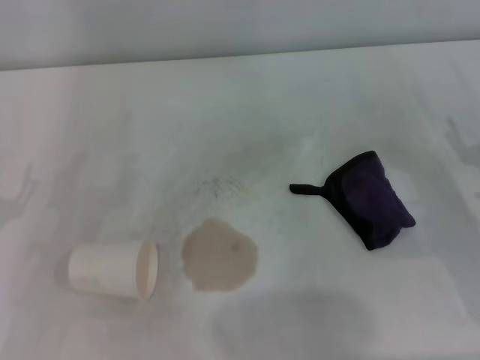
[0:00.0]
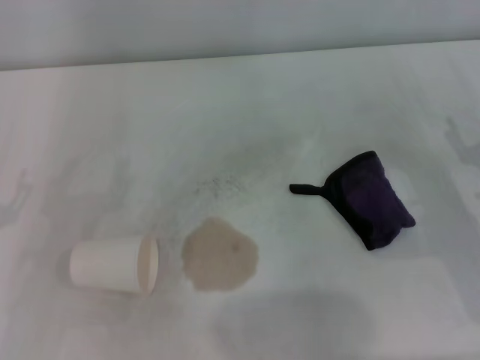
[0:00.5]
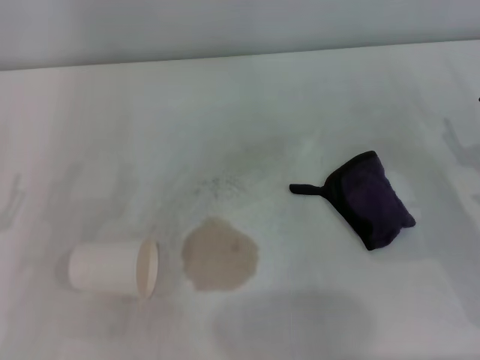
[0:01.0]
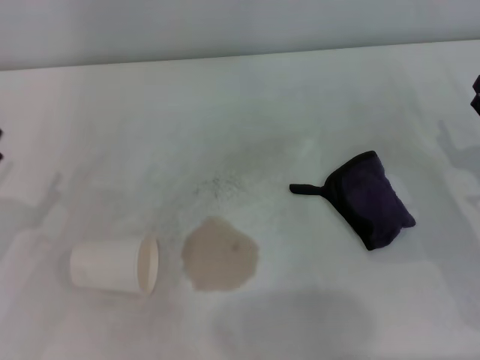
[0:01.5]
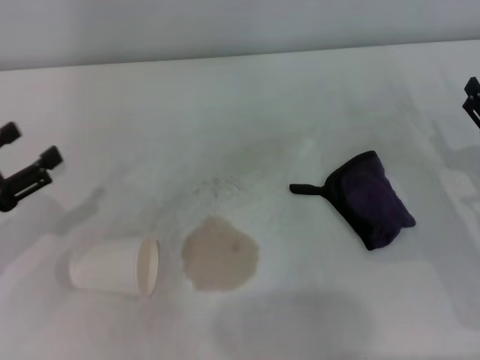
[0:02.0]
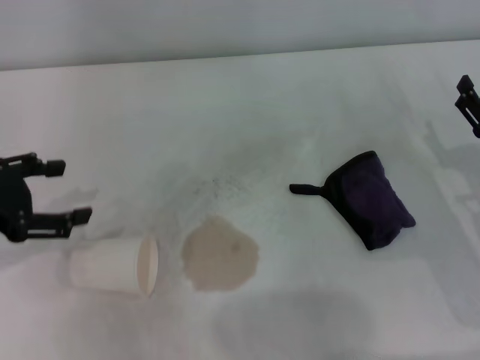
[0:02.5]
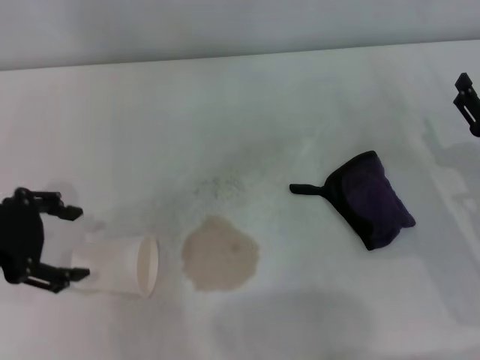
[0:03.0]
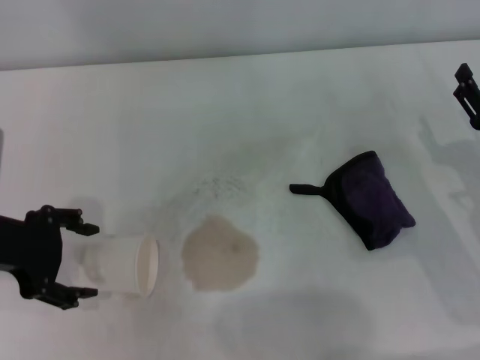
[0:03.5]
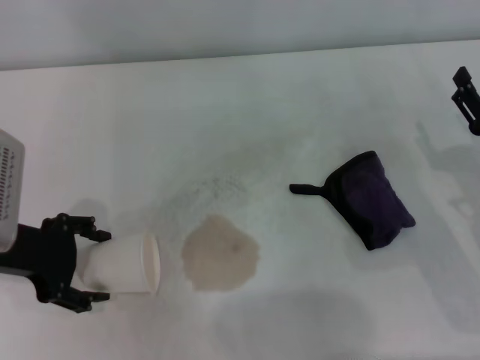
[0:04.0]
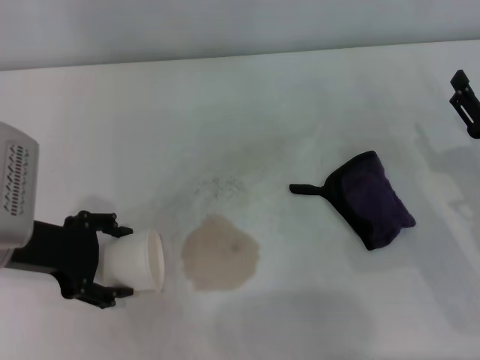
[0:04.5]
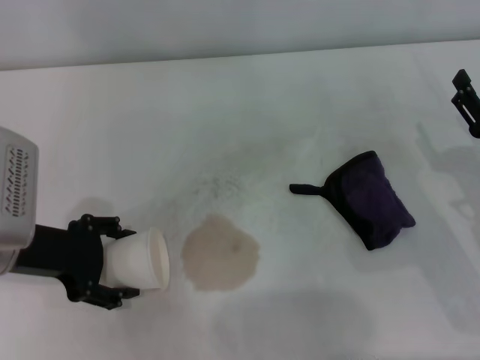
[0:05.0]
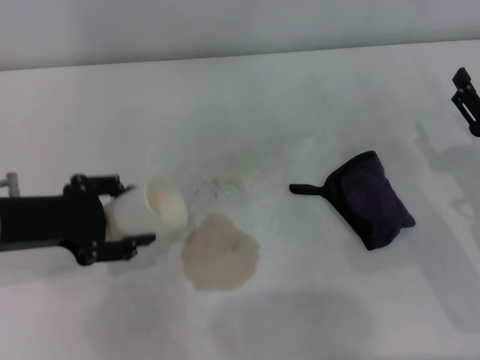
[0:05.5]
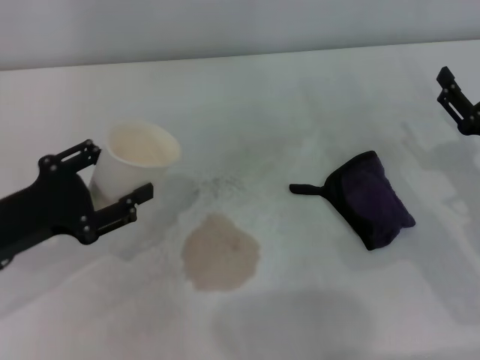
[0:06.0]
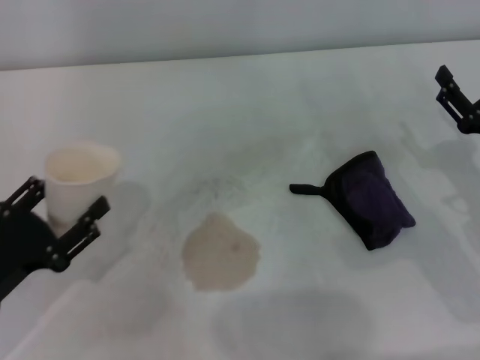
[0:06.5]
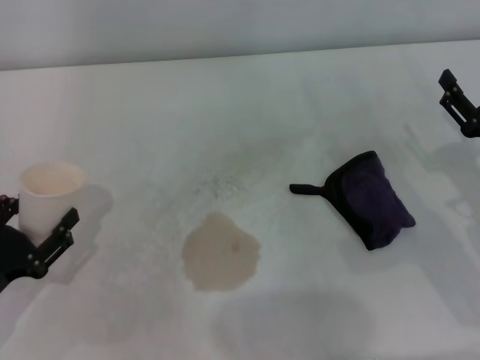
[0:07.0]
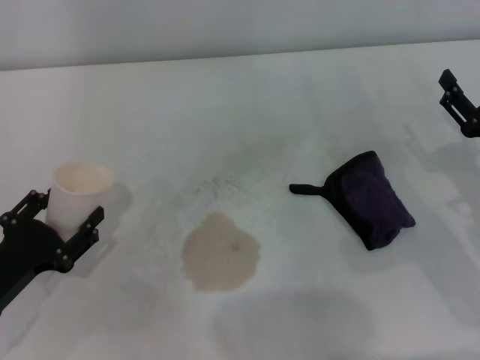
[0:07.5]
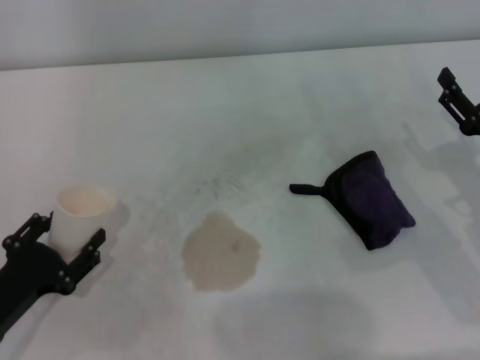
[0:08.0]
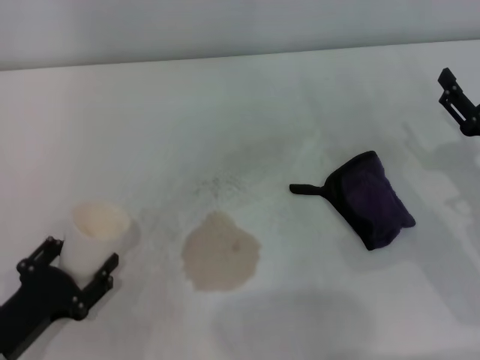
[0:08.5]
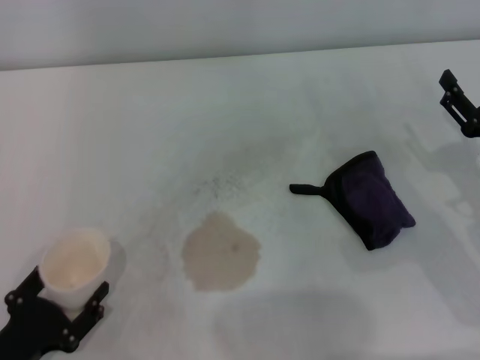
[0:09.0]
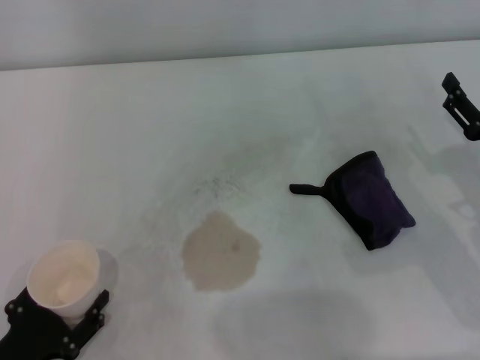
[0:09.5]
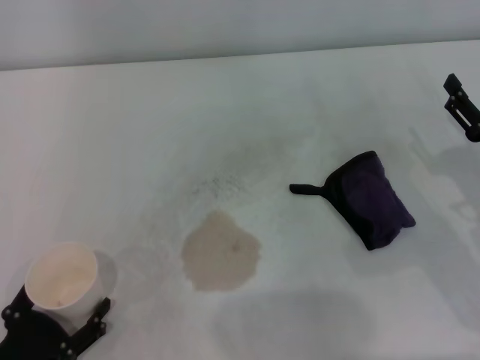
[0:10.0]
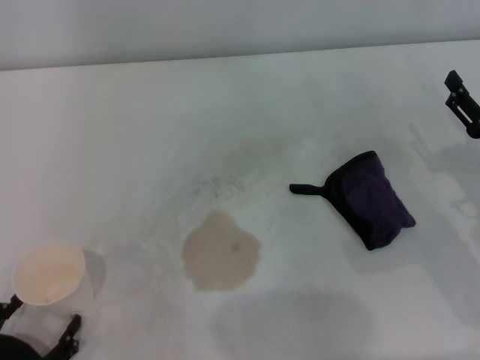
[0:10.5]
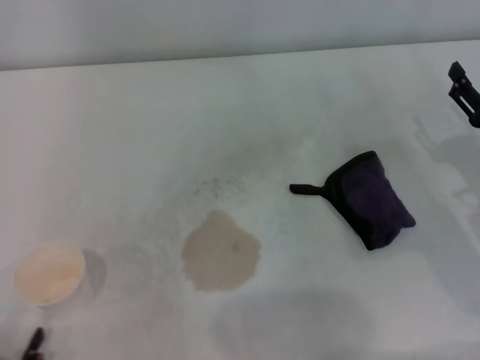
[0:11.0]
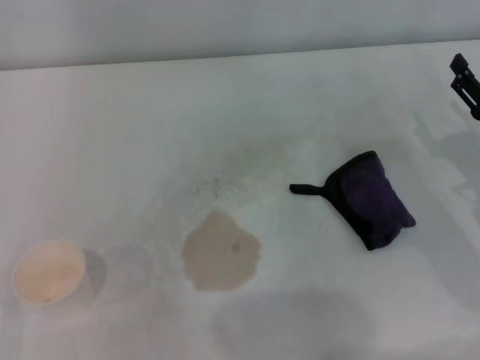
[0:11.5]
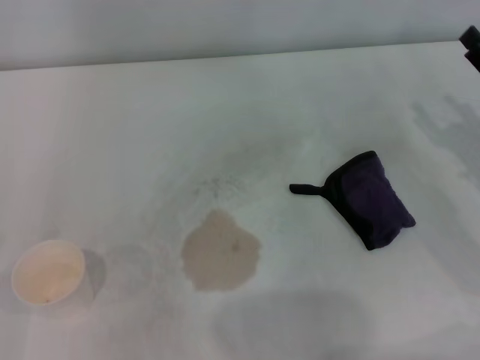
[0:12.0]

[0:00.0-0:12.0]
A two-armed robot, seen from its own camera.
Step, 0:00.0 to 0:04.5: Grasp the paper cup with the left gripper.
Step, 0:05.0 to 0:09.5: Stand the paper cup upright with the left gripper.
0:02.0 to 0:04.0: The left gripper shifts some 10 cm to the right.
0:04.0 to 0:06.0: The left gripper changes place by about 5 cm, and closes its fingers.
0:06.0 to 0:08.0: The left gripper travels downward and backward by some 10 cm.
0:08.0 to 0:10.0: The left gripper is displaced backward by roughly 5 cm, and opens its fingers.
0:10.0 to 0:12.0: The left gripper travels to the left by approximately 5 cm.

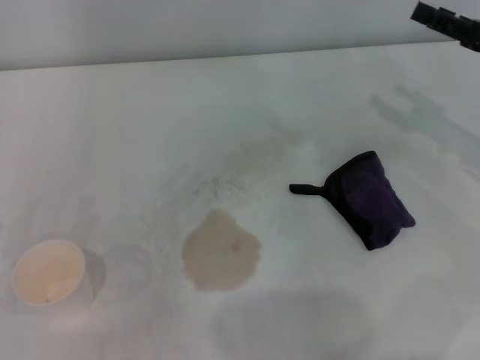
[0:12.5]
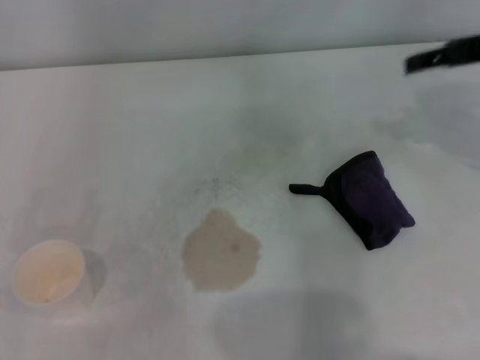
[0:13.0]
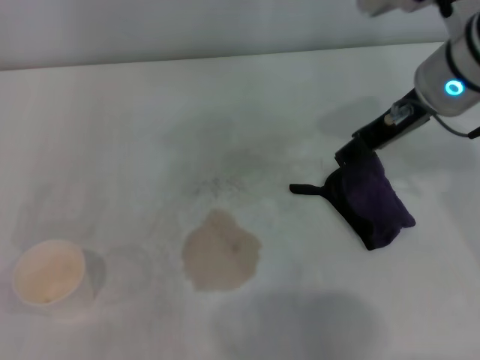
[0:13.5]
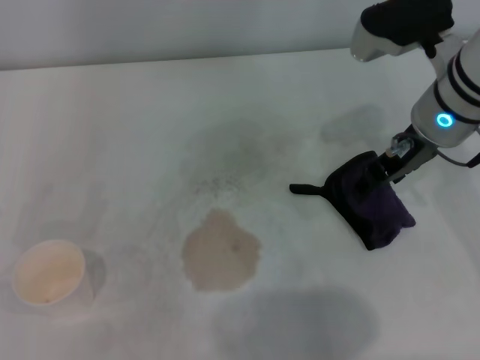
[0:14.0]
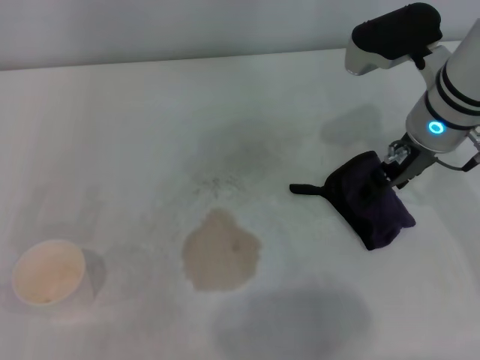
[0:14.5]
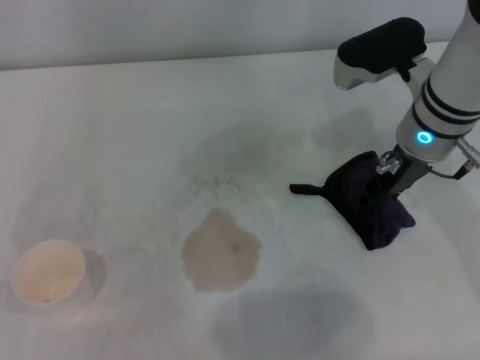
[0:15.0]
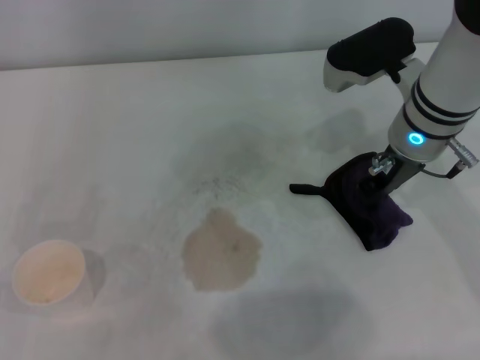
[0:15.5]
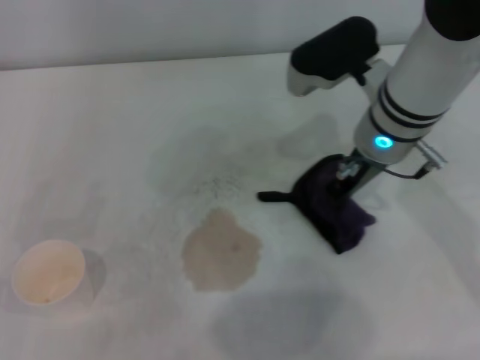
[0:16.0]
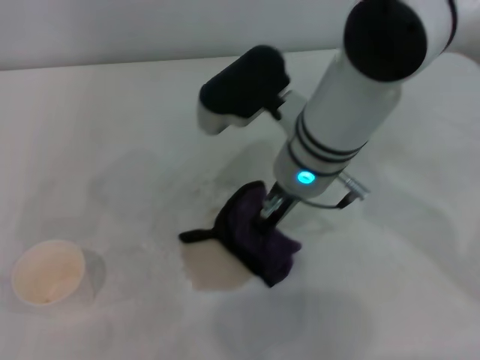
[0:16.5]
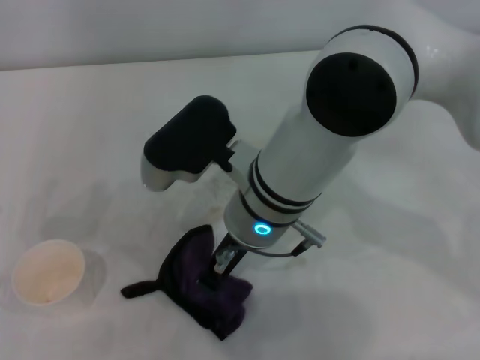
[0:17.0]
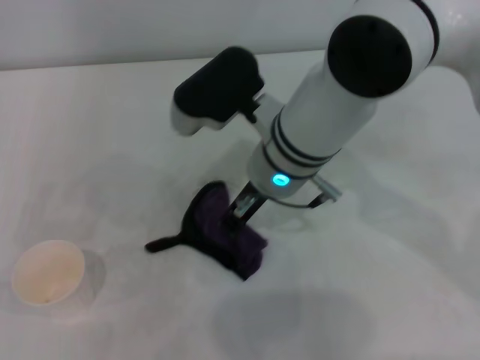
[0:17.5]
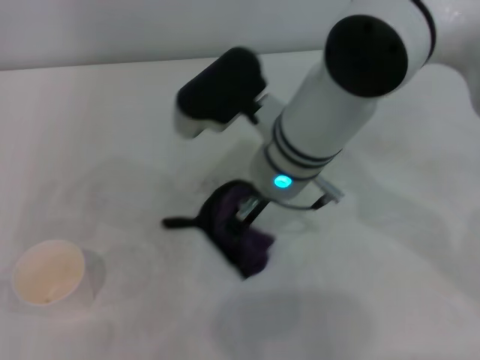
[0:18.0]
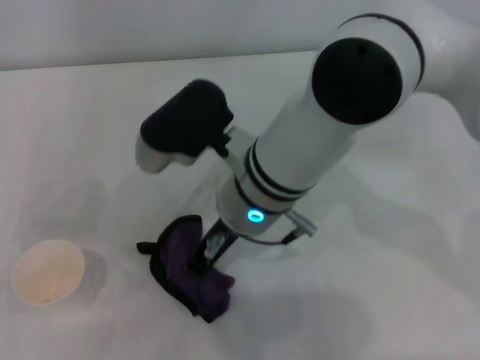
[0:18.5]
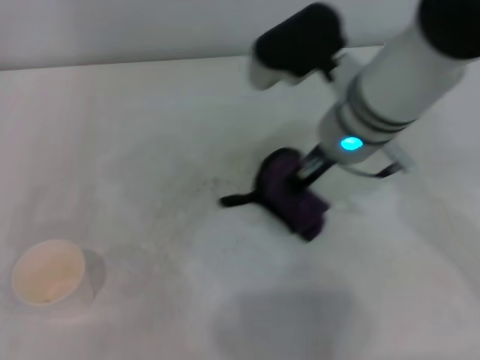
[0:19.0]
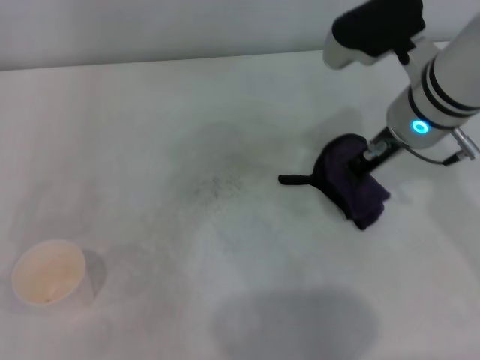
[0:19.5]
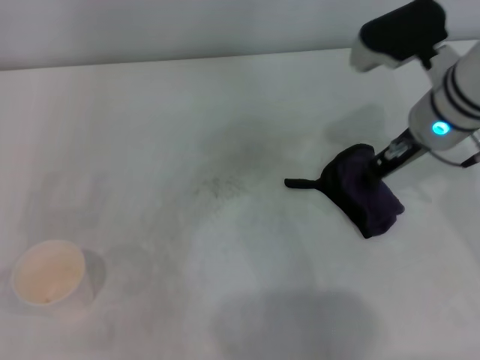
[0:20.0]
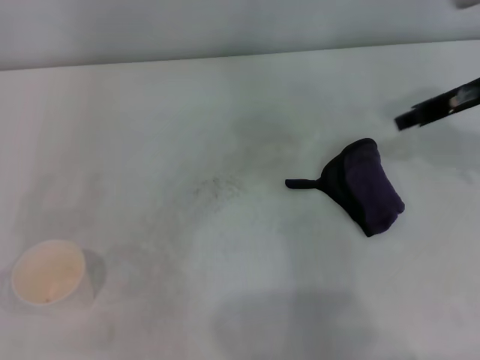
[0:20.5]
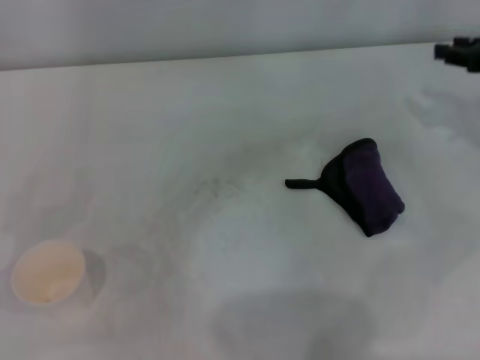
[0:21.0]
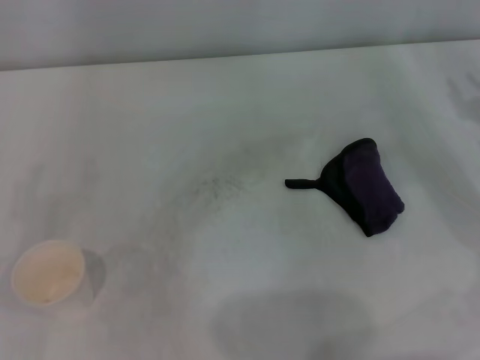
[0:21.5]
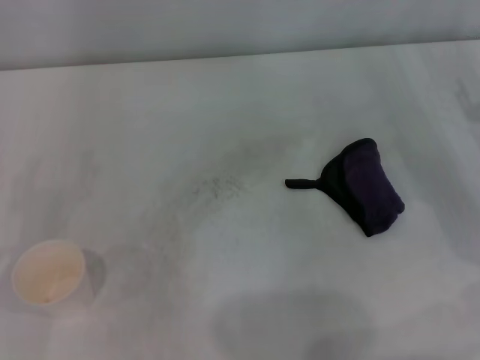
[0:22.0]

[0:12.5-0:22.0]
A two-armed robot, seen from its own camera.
Step, 0:12.5 to 0:15.5: Grasp the rag with the right gripper.
Step, 0:16.0 to 0:19.0: Wipe the stains off the table with the right gripper.
Step, 0:19.5 to 0:20.0: Place the rag on the table with the right gripper.
0:12.5 to 0:14.5: The right gripper travels to the left by roughly 15 cm.
0:14.5 to 0:16.5: The right gripper heads to the left, covering some 15 cm, and closes.
0:16.5 to 0:18.0: The grippers make only small movements.
0:18.0 to 0:20.0: The right gripper is displaced to the right by about 15 cm.
0:20.0 to 0:22.0: The right gripper moves to the right and downward, roughly 20 cm, and opens its fingers.

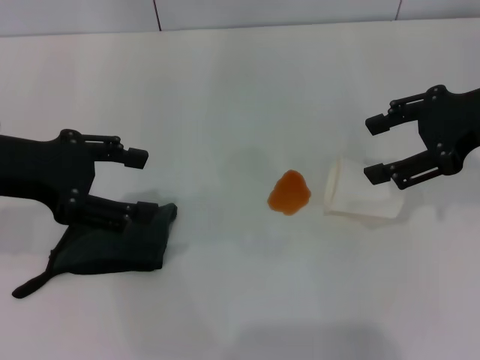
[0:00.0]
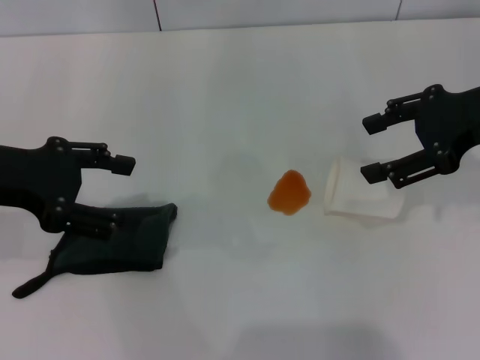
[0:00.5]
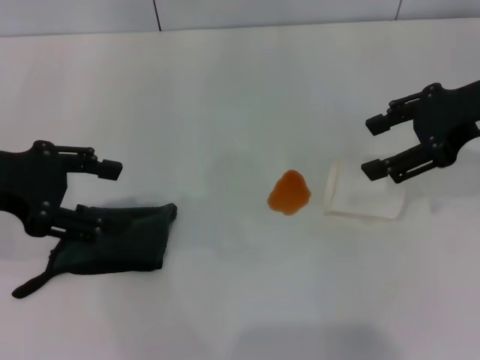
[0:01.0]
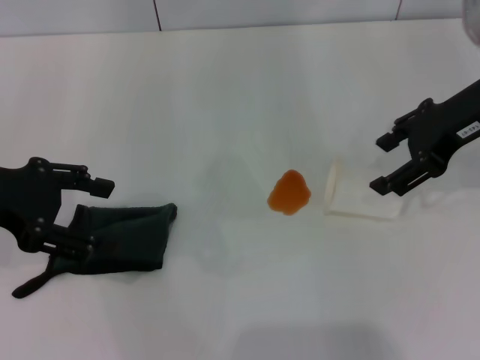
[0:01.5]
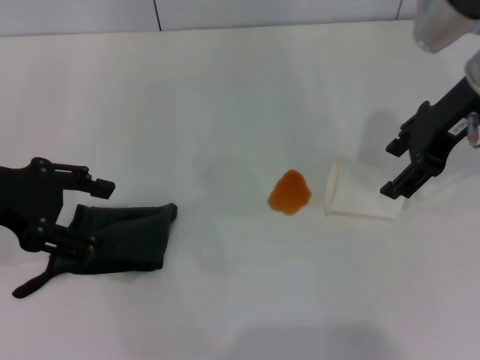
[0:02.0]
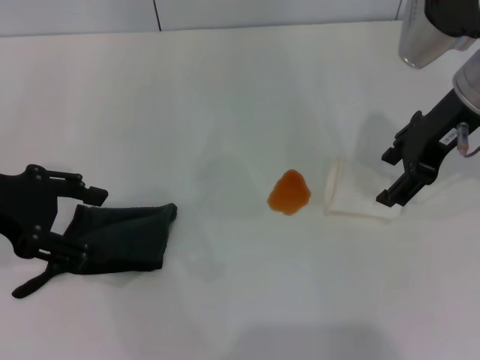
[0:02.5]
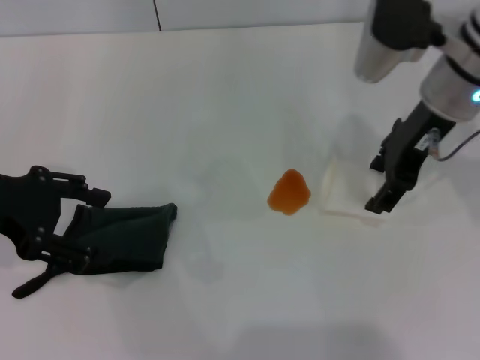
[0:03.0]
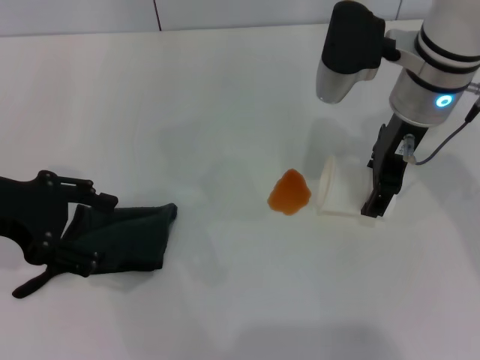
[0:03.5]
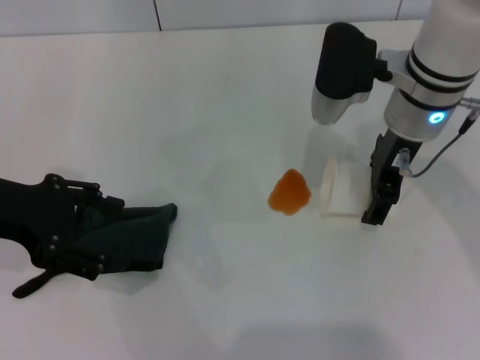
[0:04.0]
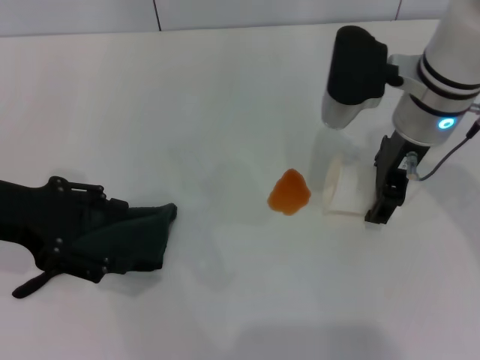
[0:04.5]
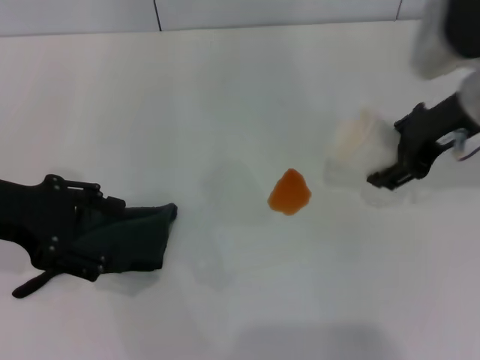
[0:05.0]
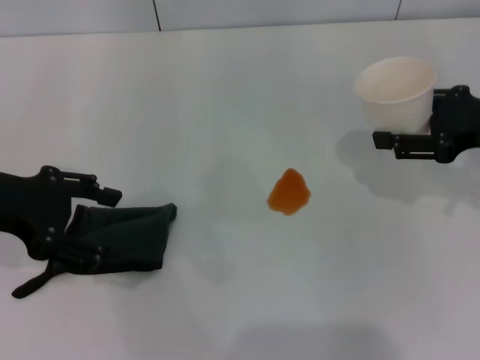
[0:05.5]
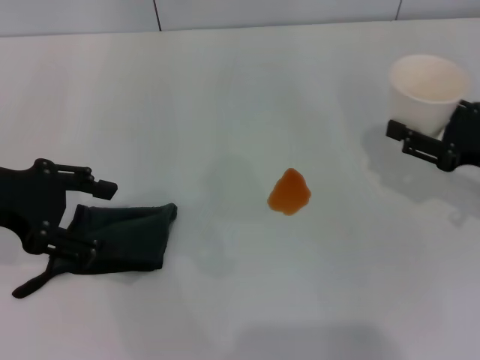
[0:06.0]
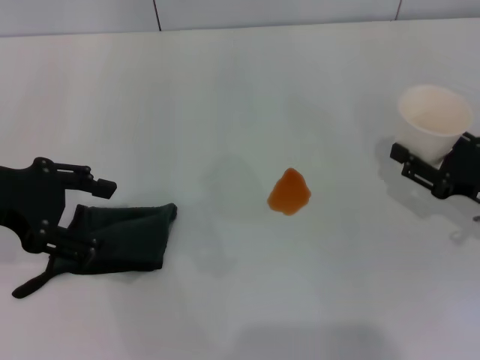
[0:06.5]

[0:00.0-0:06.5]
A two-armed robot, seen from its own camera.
Step, 0:00.0 to 0:04.0: Grasp the paper cup with the right gripper.
0:00.0 to 0:02.0: The right gripper moves to the left, some 5 cm.
0:02.0 to 0:04.5: The right gripper goes roughly 10 cm to the left and downward.
0:04.5 to 0:06.5: The right gripper is displaced to the right, downward and backward by approximately 25 cm, and closes its fingers.
